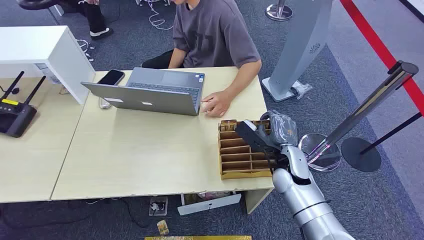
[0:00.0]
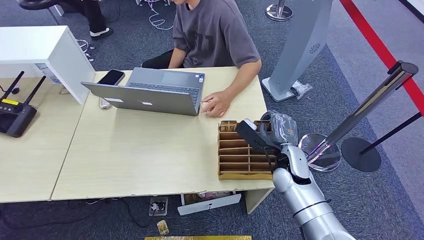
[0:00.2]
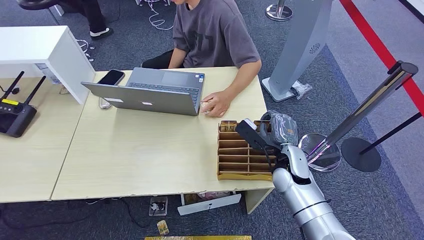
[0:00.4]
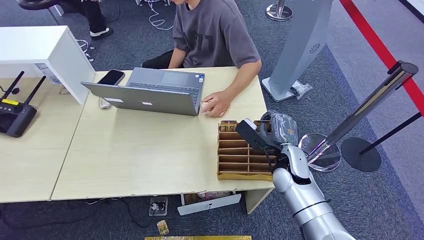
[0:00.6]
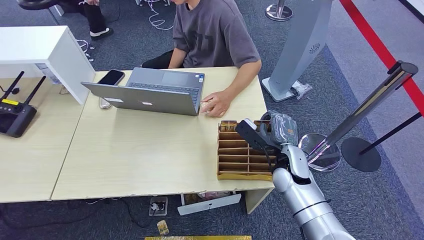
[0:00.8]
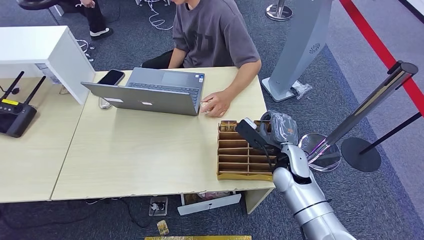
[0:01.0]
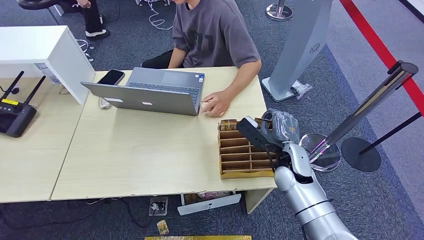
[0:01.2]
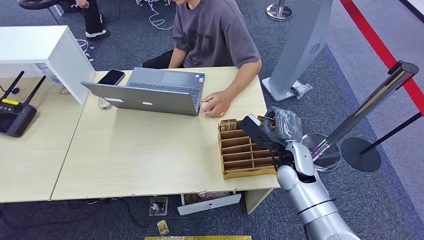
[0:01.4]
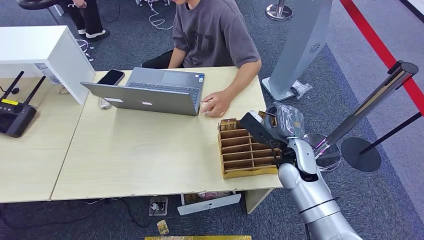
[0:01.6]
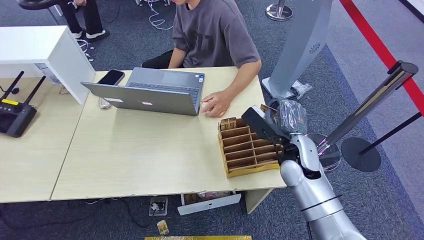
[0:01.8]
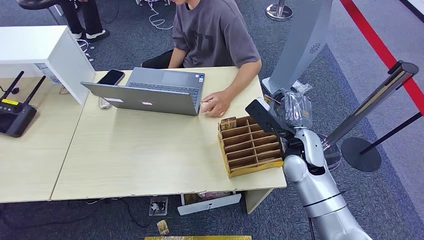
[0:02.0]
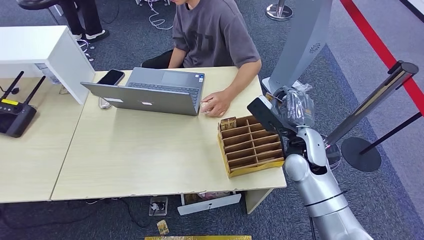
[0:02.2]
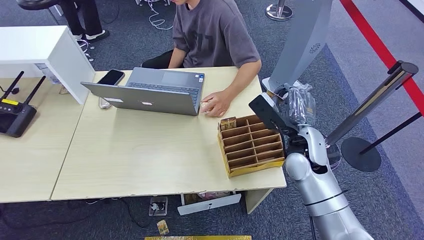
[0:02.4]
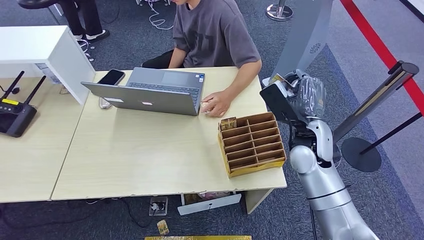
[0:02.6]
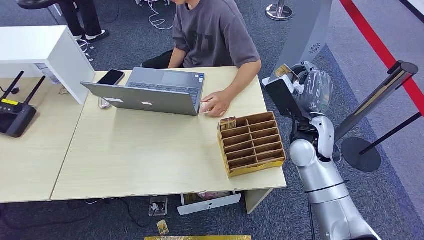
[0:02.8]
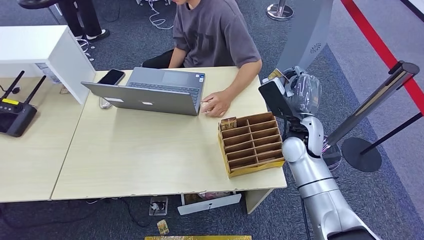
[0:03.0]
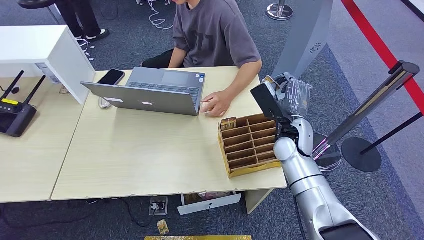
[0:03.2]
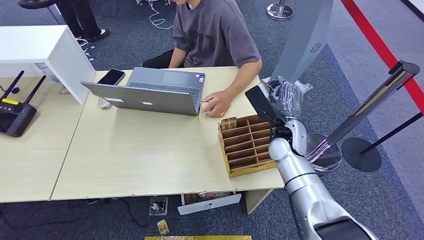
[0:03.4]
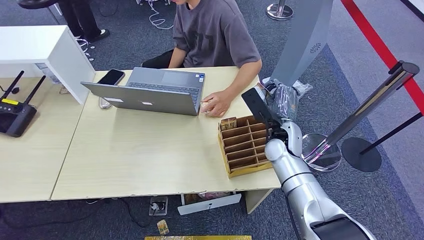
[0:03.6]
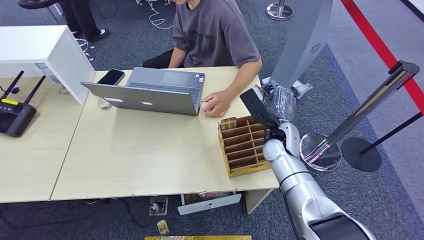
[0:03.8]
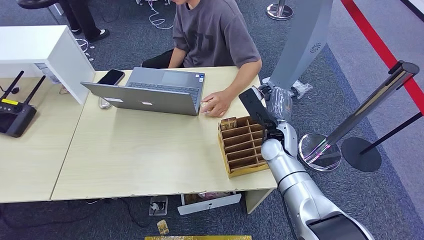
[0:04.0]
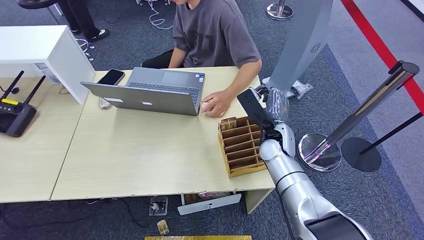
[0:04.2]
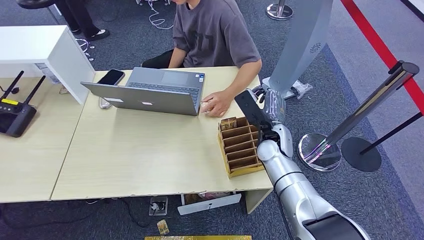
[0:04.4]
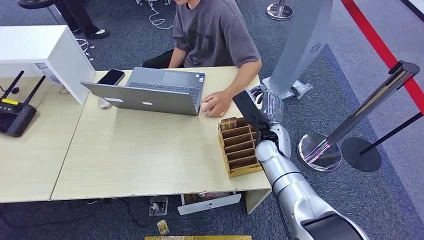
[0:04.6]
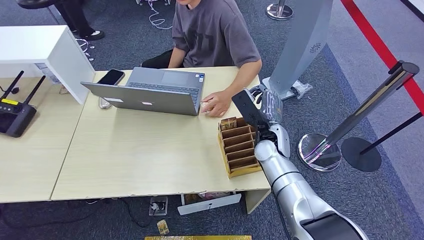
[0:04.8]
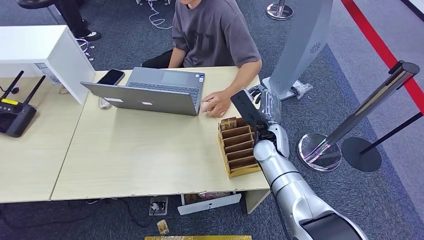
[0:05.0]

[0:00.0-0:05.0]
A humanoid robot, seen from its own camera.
Step, 0:00.0 to 0:00.6: Pick up the room card from the card holder.
Step, 0:04.8 to 0:05.0: Hand the room card to the target.
0:01.6 to 0:03.4: The right hand shifts approximately 5 cm forward, and travels upward and back again, approximately 10 cm each way.
0:03.4 to 0:05.0: The hands stay close to where they were, moving slightly.
